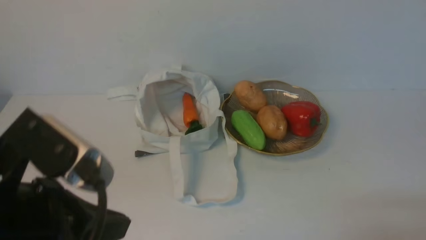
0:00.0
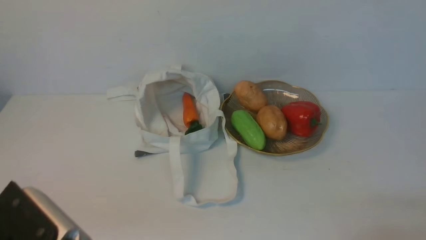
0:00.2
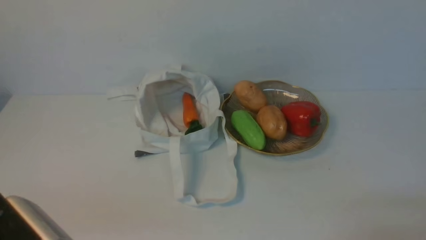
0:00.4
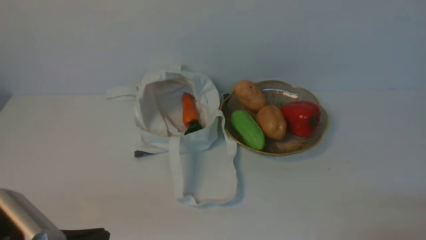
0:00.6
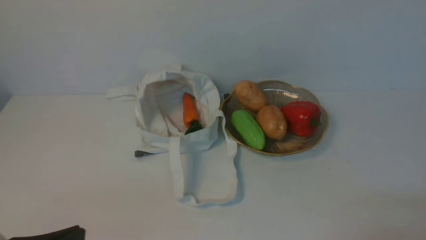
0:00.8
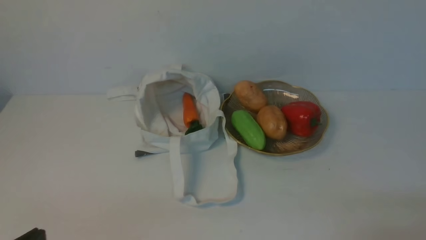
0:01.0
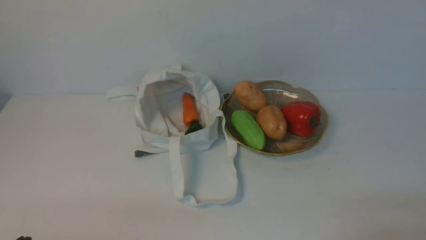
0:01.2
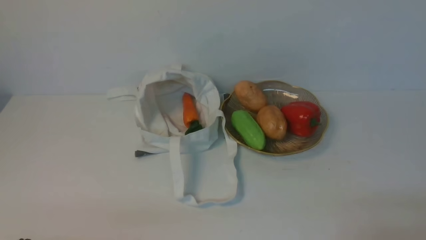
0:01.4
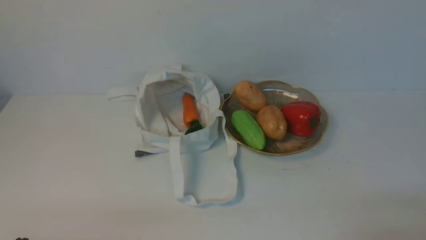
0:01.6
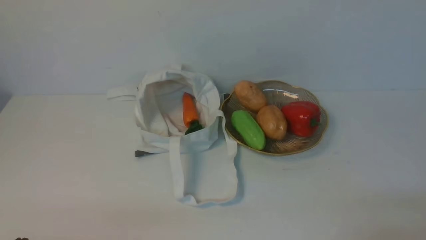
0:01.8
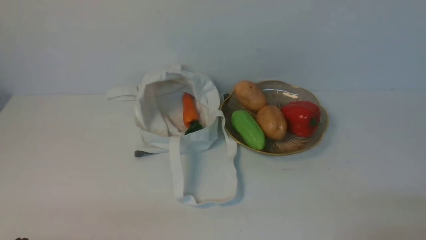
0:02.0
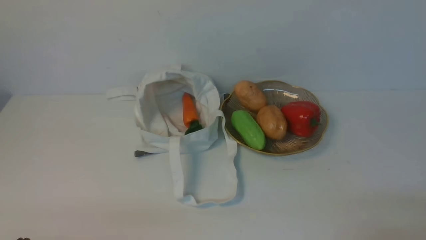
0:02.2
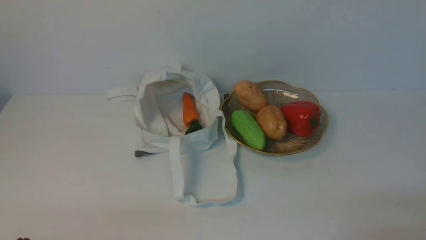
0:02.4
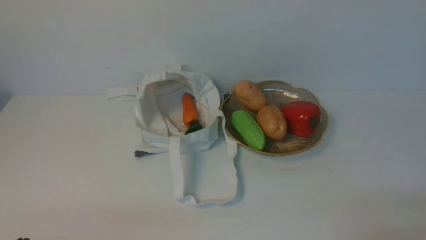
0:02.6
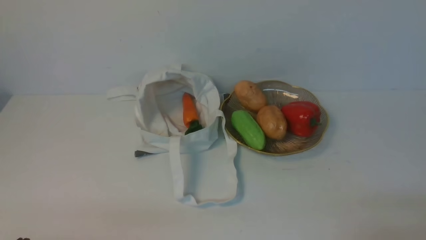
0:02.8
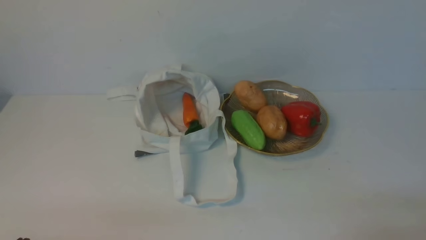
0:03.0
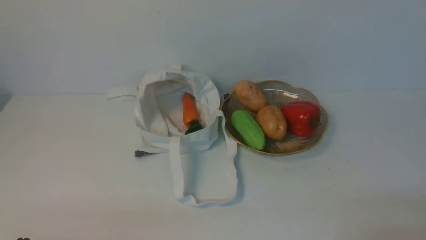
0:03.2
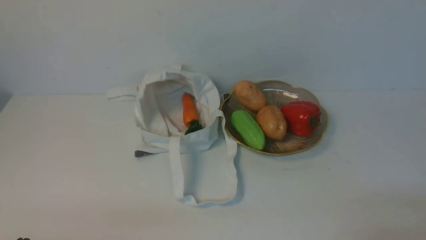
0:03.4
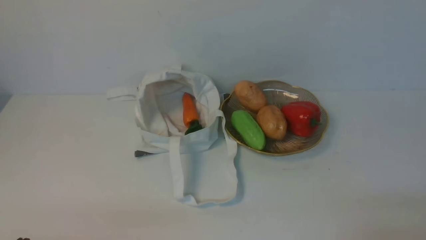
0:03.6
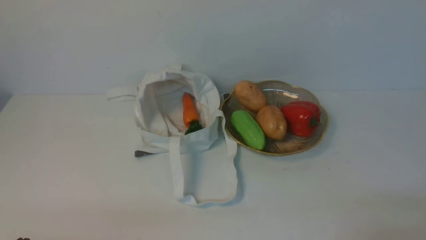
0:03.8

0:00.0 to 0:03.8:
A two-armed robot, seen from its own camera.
Task of the whole recording: take vegetables from cloth bag on white table place on plate.
0:00.0 to 0:01.2: The left gripper moves downward, to the left and backward, approximately 20 cm.
0:02.6 to 0:03.8: The two grippers keep their place.
